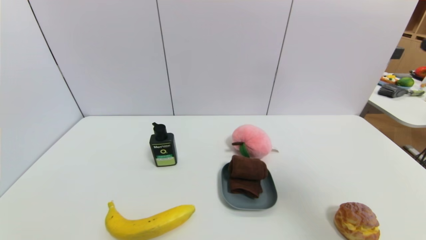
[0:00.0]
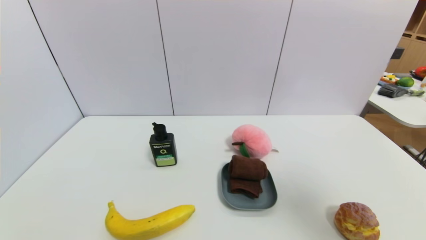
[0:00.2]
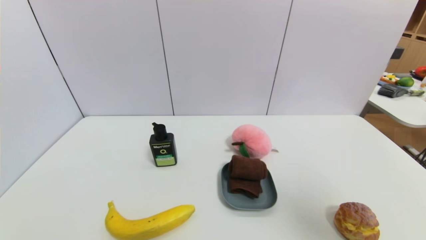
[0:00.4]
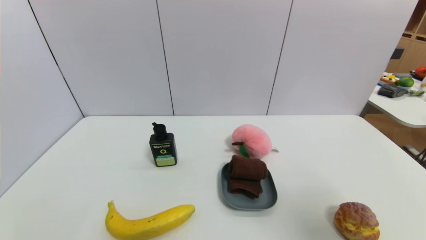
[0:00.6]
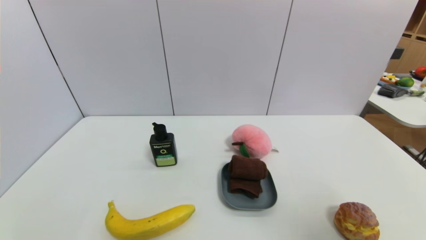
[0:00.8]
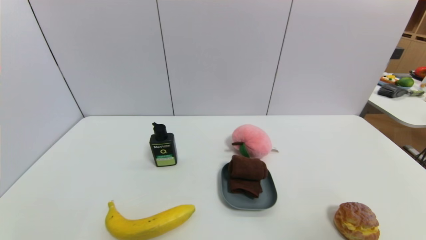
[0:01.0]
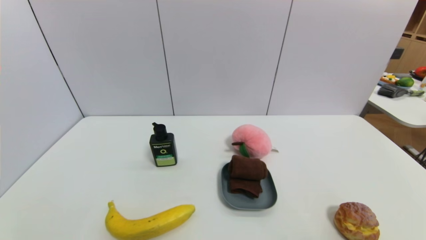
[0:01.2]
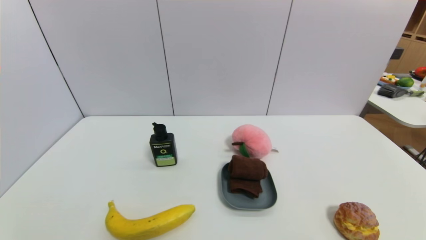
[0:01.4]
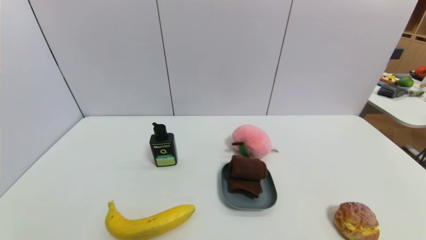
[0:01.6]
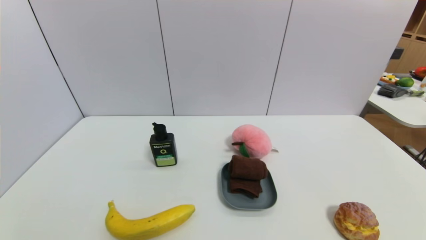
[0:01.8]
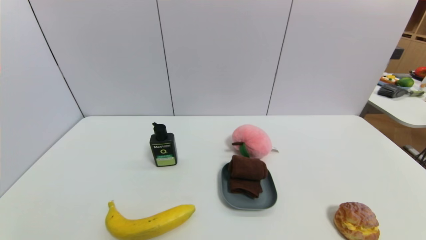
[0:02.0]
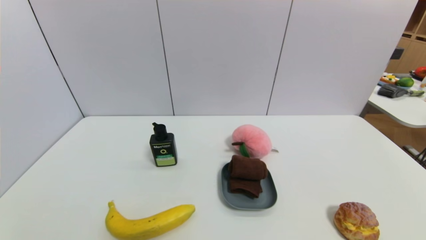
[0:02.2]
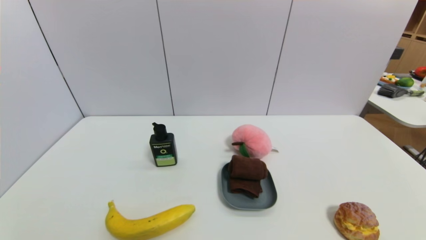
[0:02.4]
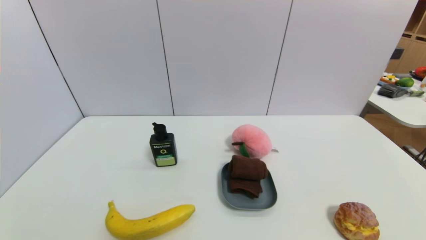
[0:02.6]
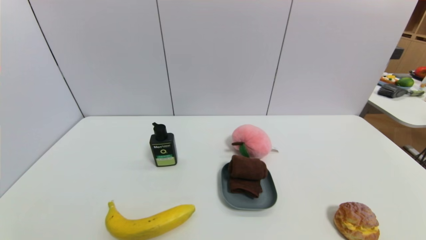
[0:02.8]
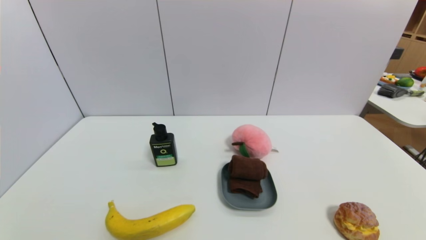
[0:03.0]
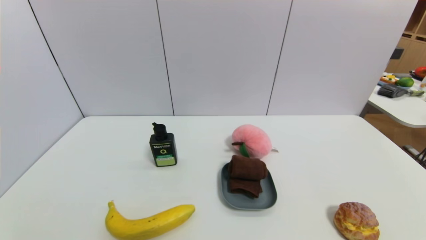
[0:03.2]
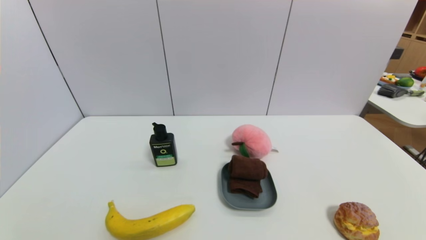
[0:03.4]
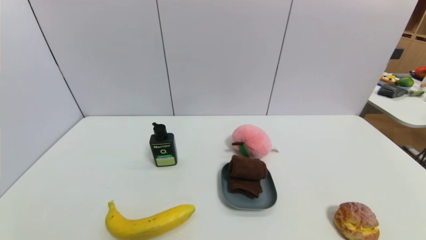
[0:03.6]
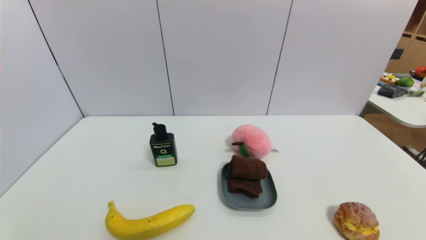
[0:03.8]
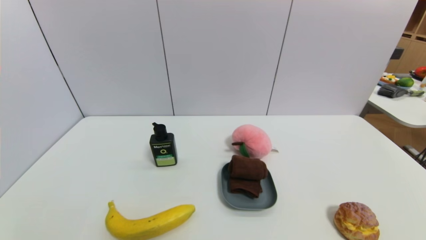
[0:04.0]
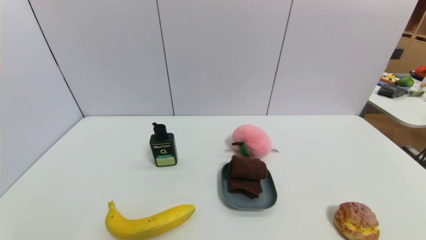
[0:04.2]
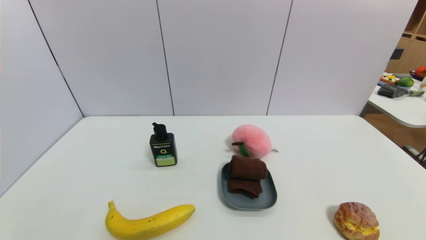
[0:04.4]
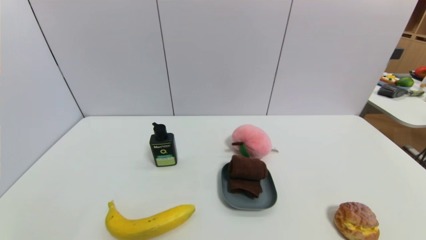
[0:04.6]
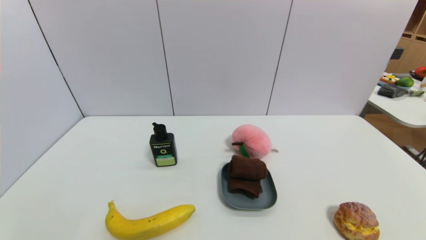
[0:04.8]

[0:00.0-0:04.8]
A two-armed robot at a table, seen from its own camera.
Task of the whole recording: use a gripper to pick the target object and place on the dish.
0:00.0 to 0:01.6: The right gripper moves backward and downward, some 20 cm.
0:03.2 to 0:04.8: The two grippers keep their place.
